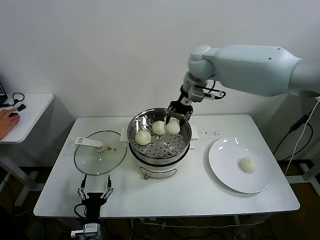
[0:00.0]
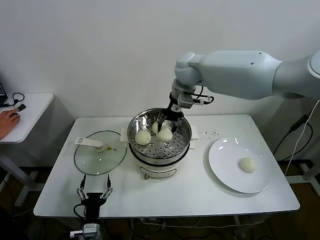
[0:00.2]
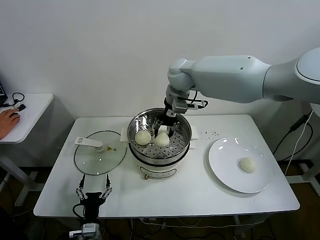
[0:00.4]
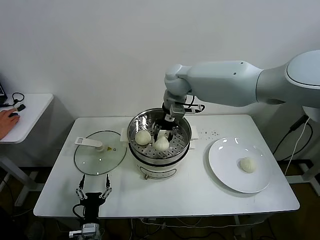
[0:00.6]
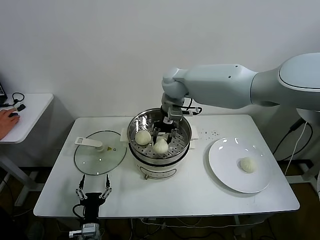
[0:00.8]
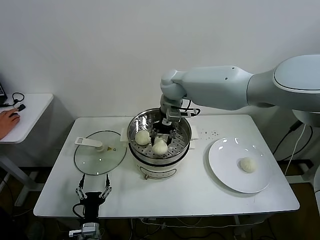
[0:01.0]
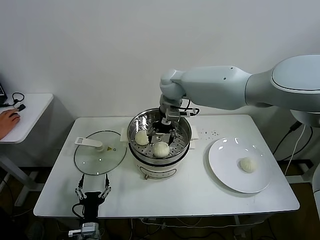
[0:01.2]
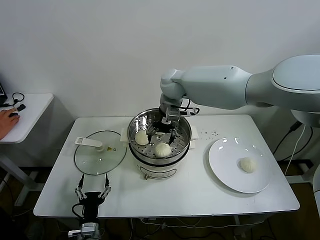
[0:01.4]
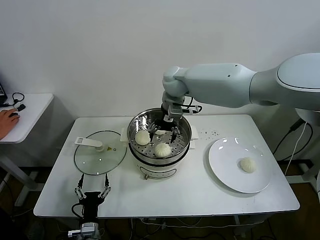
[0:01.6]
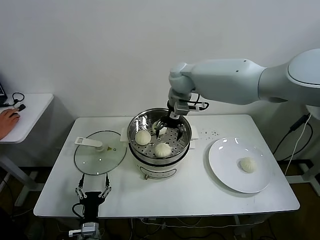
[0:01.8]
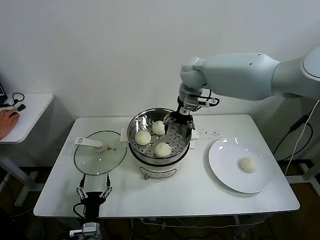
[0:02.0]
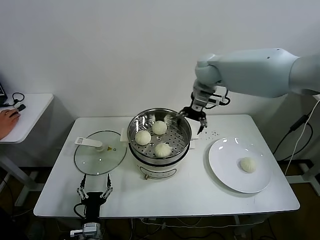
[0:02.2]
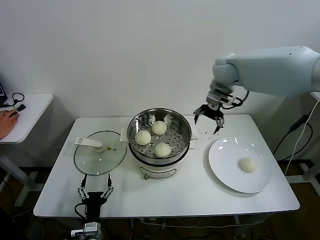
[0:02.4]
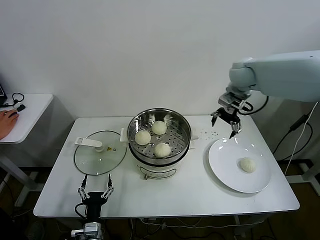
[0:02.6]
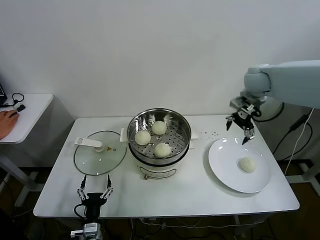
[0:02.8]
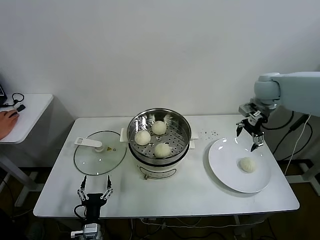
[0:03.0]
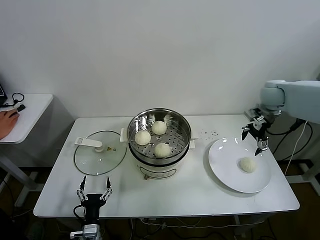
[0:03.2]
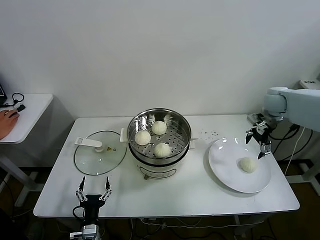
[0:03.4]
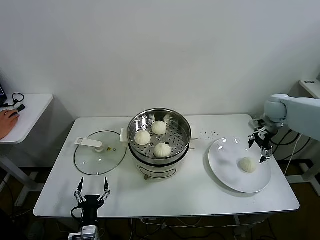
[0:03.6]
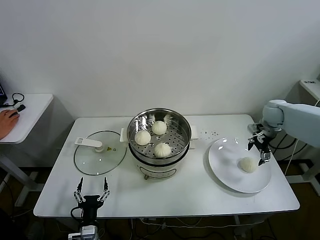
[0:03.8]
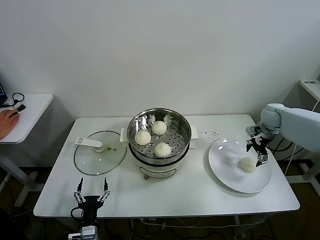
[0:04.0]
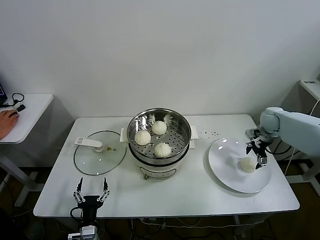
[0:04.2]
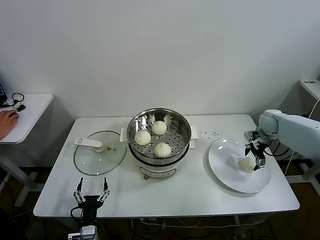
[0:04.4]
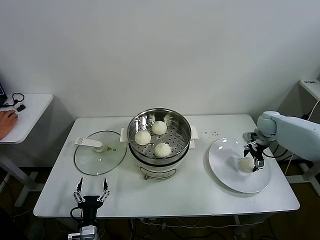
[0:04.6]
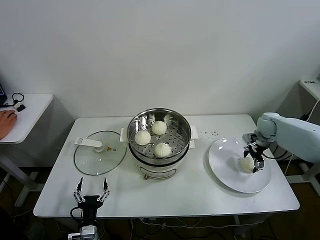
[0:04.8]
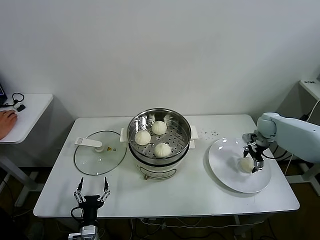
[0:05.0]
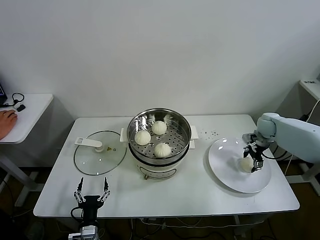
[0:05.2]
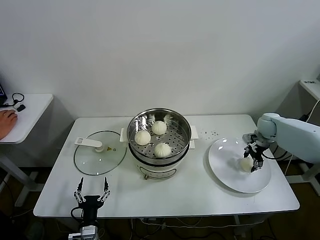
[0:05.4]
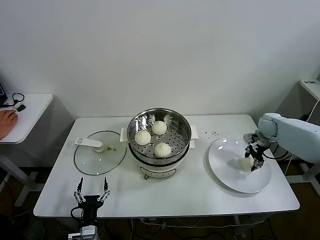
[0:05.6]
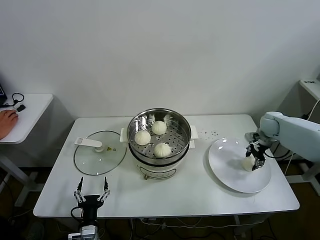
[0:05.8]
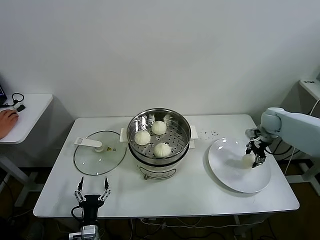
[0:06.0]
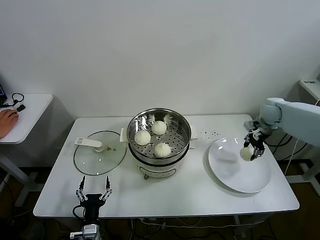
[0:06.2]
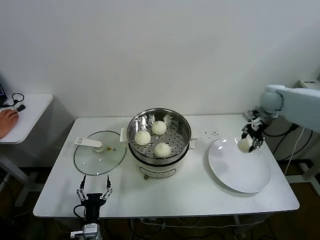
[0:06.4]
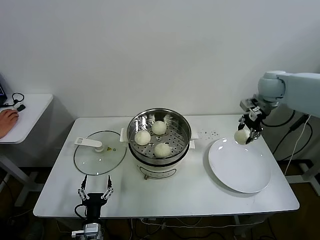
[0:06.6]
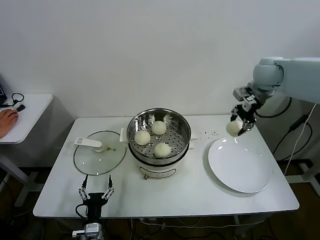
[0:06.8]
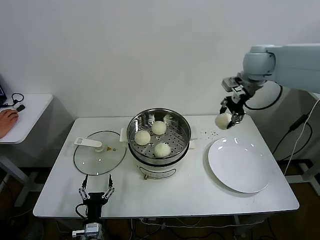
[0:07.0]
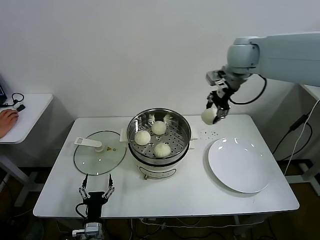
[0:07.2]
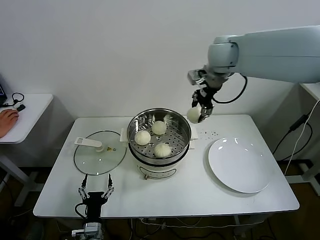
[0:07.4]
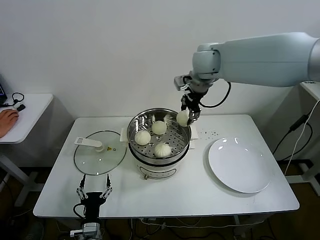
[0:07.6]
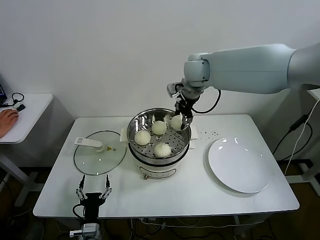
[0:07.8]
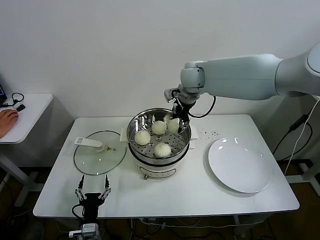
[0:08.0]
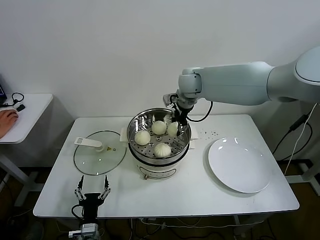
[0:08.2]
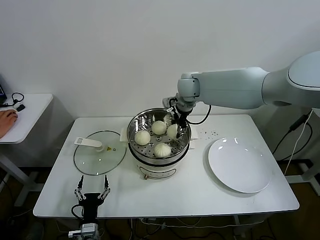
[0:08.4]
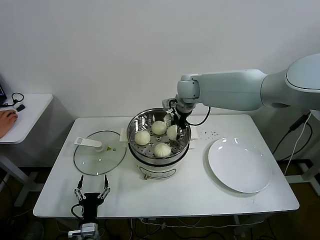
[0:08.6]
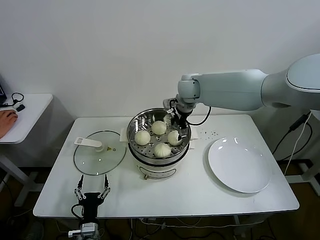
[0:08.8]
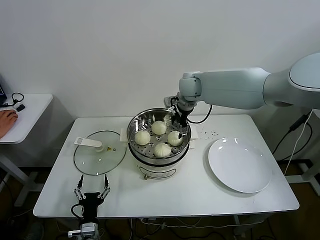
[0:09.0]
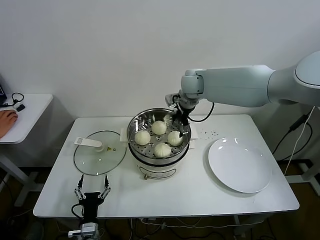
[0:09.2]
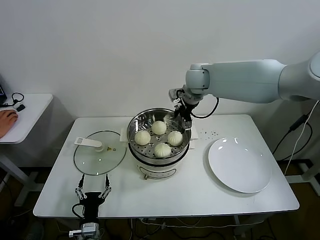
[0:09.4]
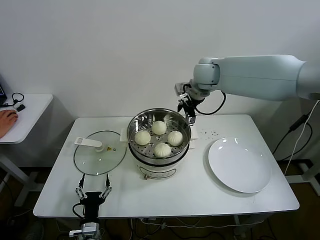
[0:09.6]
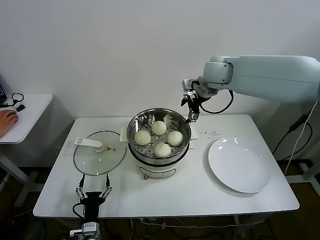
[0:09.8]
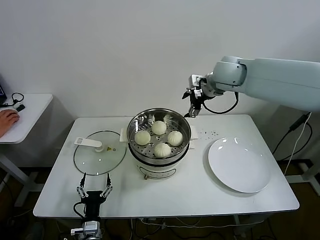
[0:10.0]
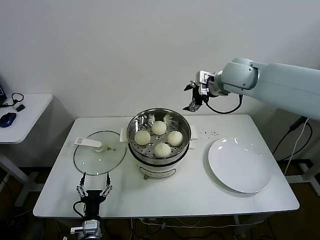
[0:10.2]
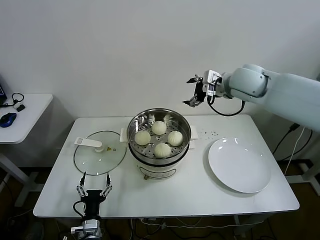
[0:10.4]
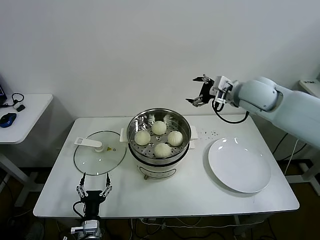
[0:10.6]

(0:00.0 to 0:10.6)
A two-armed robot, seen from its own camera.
Task of the whole recording: take steamed baozi put them in steamer.
Step, 0:01.4 - 0:05.4: Grasp the baozi in the plate with right gripper.
Step, 0:05.8 - 0:08.6: Place the baozi on the steamer with right gripper.
0:00.0 - 0:01.6: The right gripper heads to the left and downward, covering roughly 10 cm, and opens up.
0:01.6 - 0:03.0: The right gripper goes roughly 30 cm to the right.
0:03.0 - 0:04.6: The right gripper shifts about 20 cm downward and to the right.
0:04.6 - 0:06.0: The right gripper closes up.
0:06.0 - 0:07.6: The right gripper is displaced to the left and upward by approximately 40 cm.
0:07.6 - 0:09.0: The right gripper is displaced downward by approximately 10 cm, and opens its fingers.
0:09.0 - 0:10.6: The right gripper shifts approximately 20 cm to the right and backward.

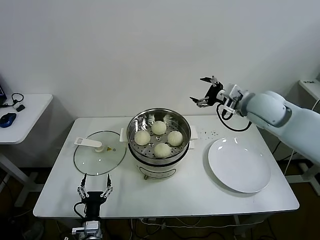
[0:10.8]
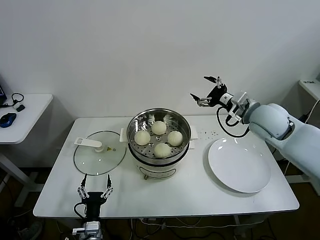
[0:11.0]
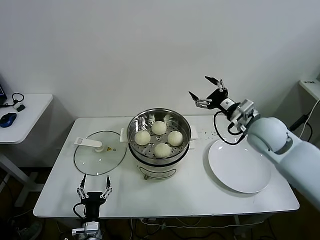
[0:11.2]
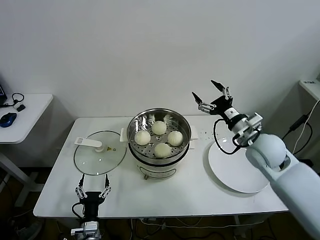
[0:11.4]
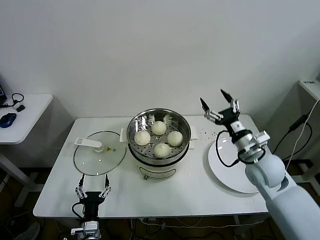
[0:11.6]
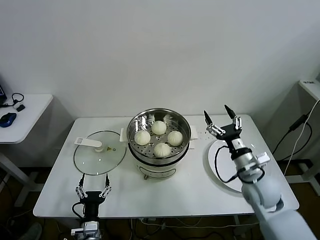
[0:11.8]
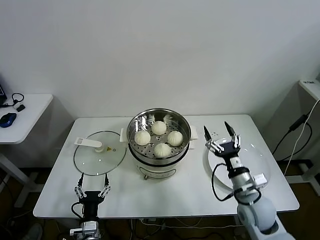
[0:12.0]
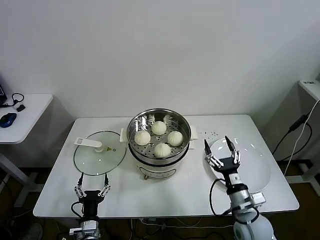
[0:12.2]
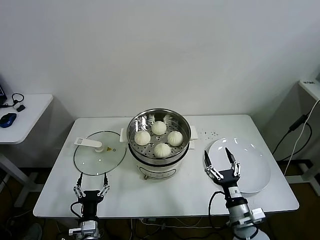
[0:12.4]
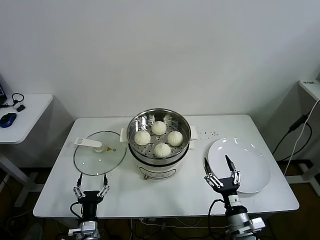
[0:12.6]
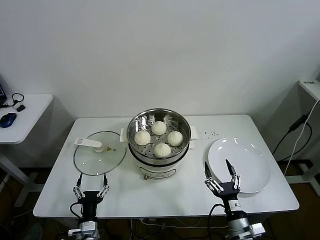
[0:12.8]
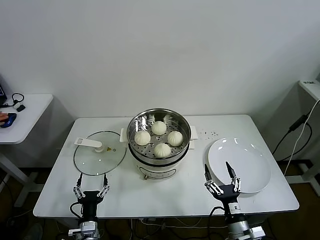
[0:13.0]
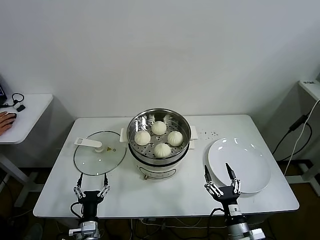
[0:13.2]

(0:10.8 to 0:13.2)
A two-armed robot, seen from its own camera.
Task of the whole recording: take steamed baozi put them in steamer.
0:10.8 - 0:12.0: The right gripper shifts approximately 30 cm downward and backward.
0:12.0 - 0:13.2: The right gripper goes some 15 cm backward and downward.

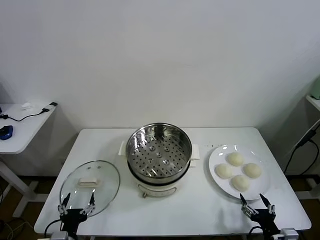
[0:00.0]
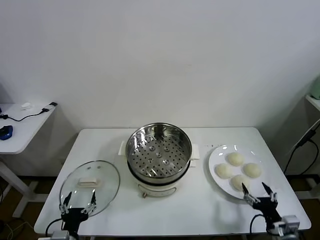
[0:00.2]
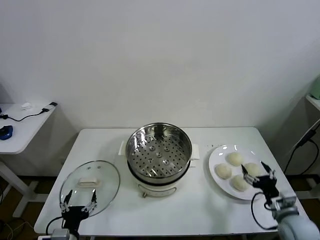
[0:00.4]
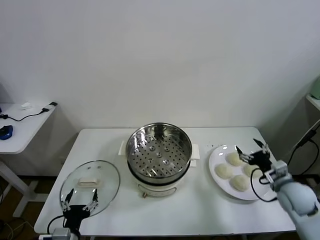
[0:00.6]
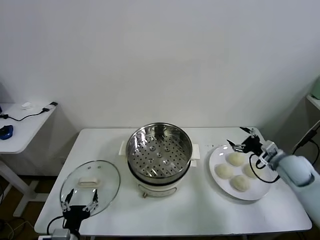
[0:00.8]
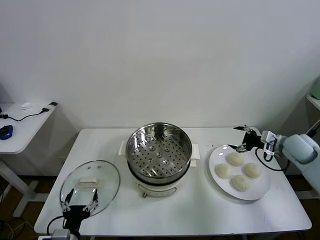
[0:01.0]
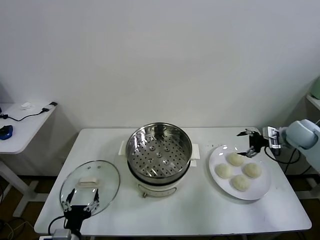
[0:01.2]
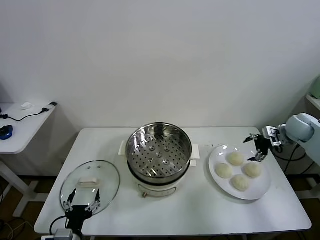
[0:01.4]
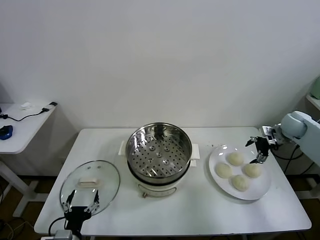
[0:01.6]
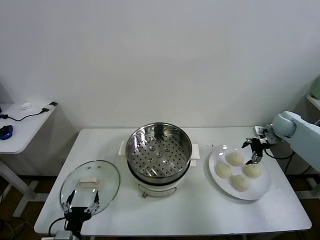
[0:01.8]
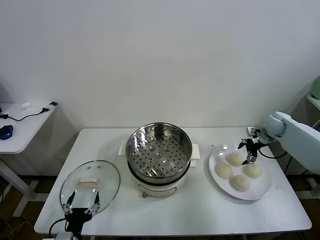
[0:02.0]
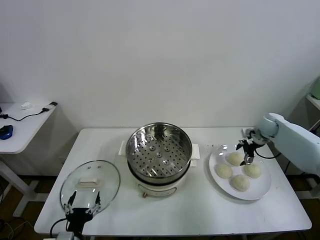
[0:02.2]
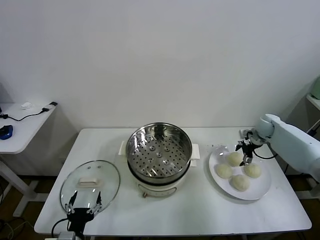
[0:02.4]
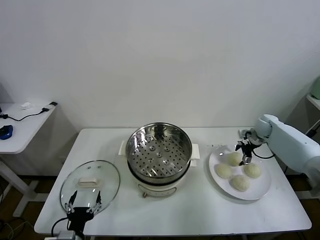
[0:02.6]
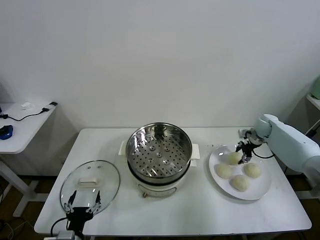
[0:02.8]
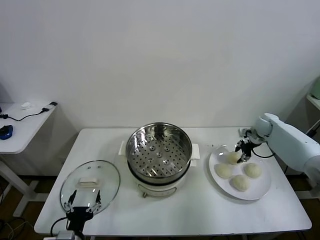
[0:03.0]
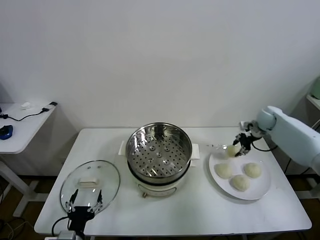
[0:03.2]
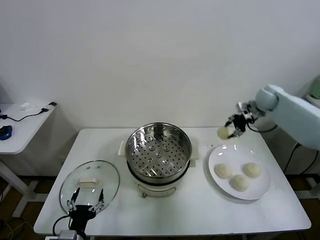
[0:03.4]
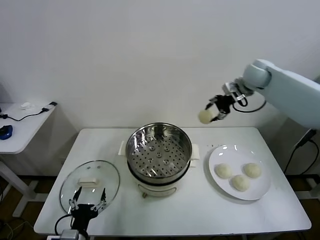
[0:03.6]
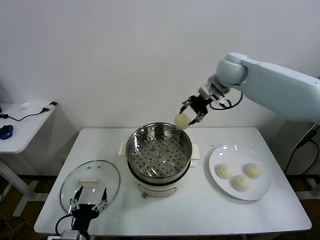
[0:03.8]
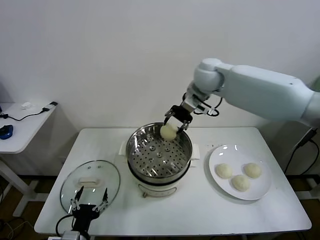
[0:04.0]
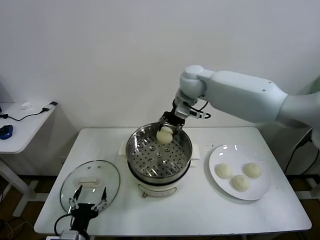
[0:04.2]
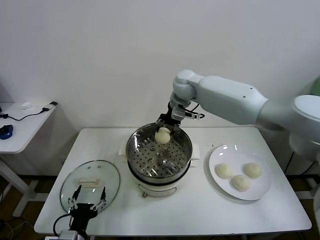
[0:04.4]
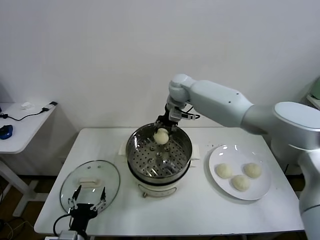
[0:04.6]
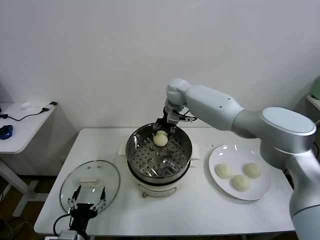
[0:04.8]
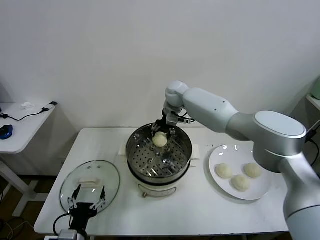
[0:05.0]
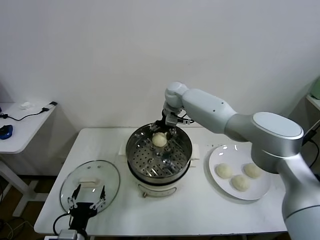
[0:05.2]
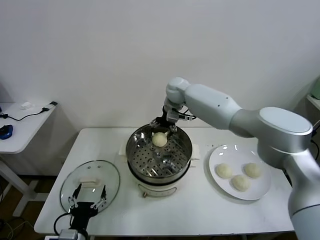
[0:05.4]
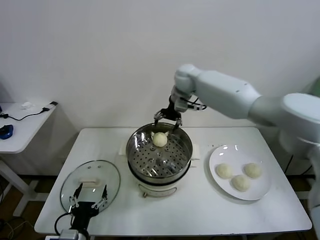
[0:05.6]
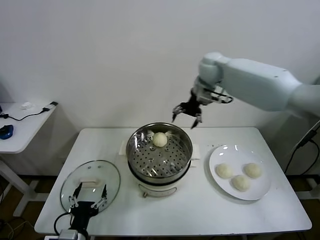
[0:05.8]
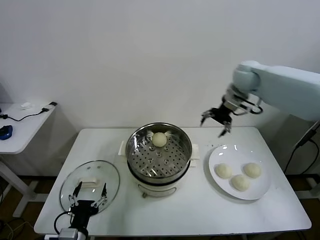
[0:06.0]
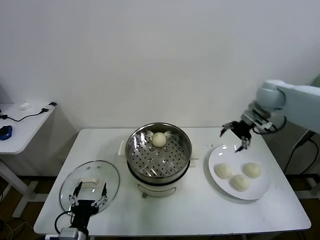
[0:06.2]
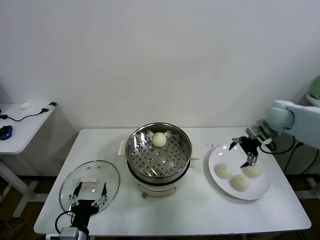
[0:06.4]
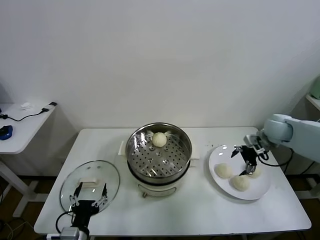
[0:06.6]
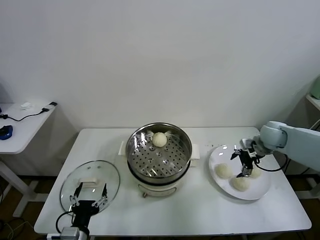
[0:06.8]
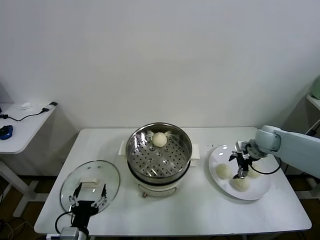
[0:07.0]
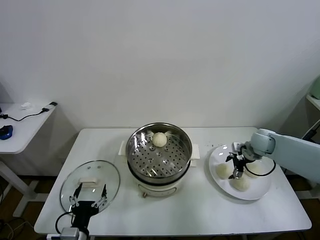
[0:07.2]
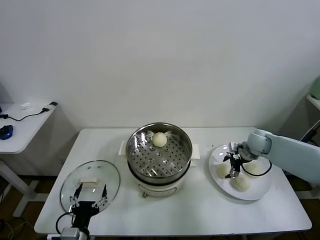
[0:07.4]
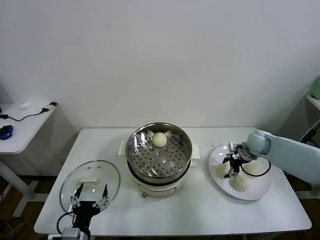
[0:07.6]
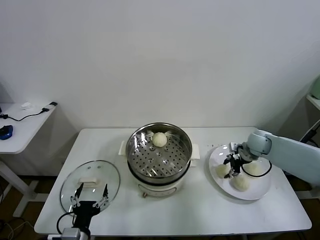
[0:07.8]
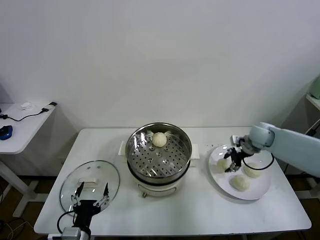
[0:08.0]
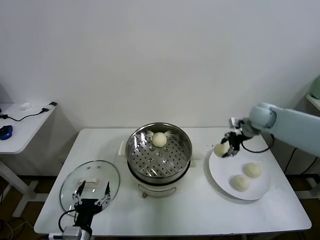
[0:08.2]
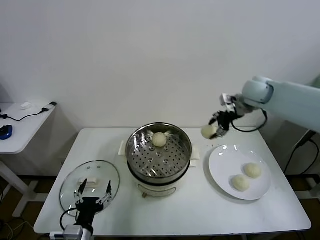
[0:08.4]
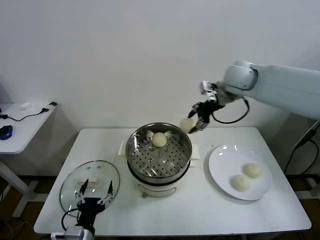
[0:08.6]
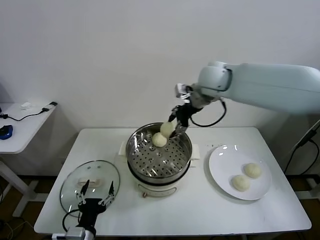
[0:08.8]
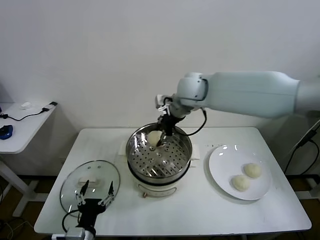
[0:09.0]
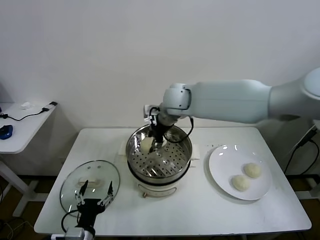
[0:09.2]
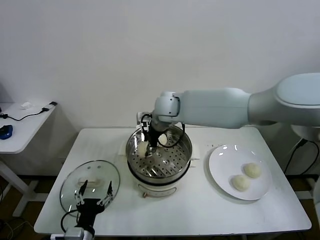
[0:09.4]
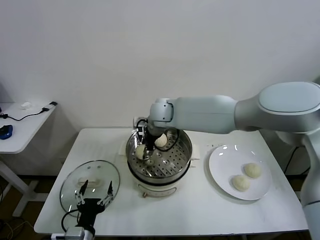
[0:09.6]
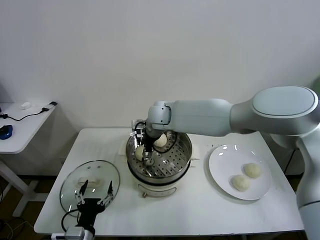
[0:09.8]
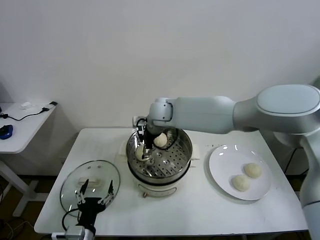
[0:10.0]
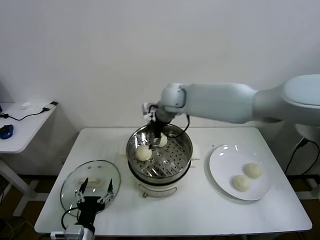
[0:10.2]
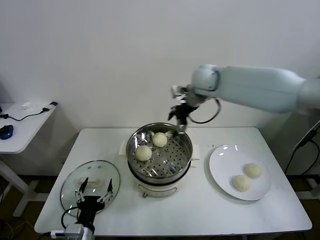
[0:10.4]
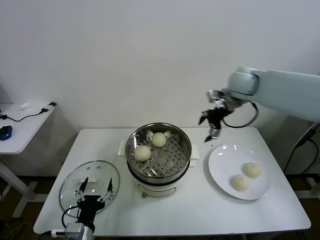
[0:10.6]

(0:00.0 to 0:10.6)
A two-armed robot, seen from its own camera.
Task of the whole recording: take steamed baozi put them in steamer.
Step, 0:00.0 - 0:02.6: Grasp the baozi in the plate with right gripper.
Step, 0:02.8 - 0:05.4: Place the baozi on the steamer with right gripper.
Step, 0:05.6 - 0:07.6: Grasp the baozi in the plate with right gripper.
Step, 0:08.0 - 0:10.0: Place the baozi on the steamer with right gripper.
0:01.6 - 0:03.0: The right gripper goes roughly 5 cm forward, and closes its fingers.
0:03.0 - 0:04.6: The right gripper goes some 35 cm to the left.
0:04.6 - 0:06.0: The right gripper shifts some 25 cm to the right, and opens up.
0:06.0 - 0:07.6: The right gripper moves downward, some 25 cm, and closes its fingers.
0:07.6 - 0:09.0: The right gripper shifts about 40 cm to the left and upward.
0:09.0 - 0:10.6: The right gripper shifts some 20 cm to the right, and opens up.
